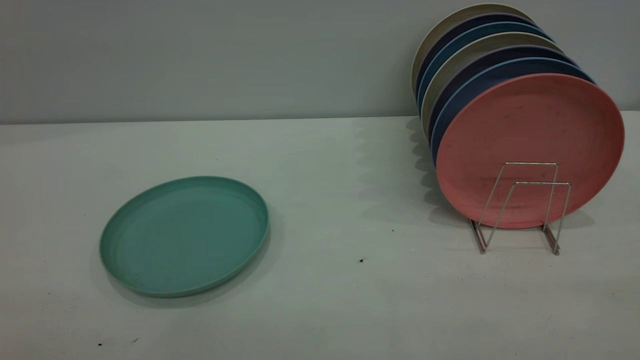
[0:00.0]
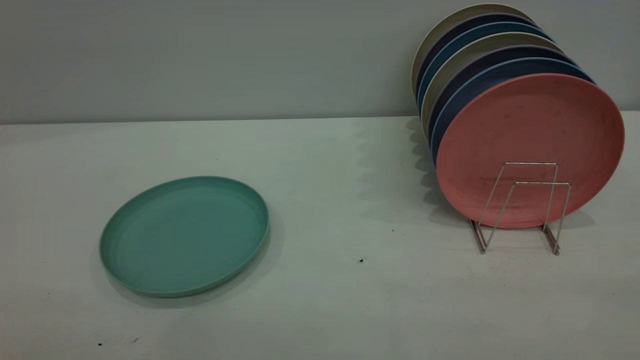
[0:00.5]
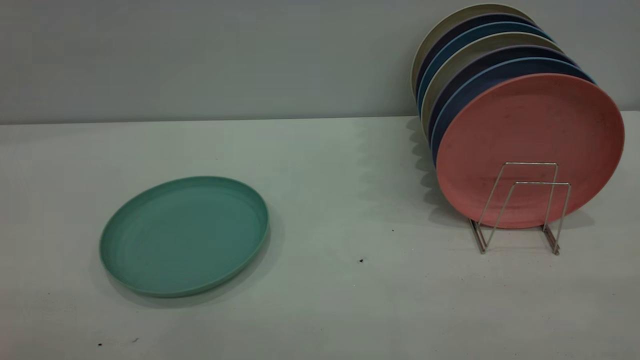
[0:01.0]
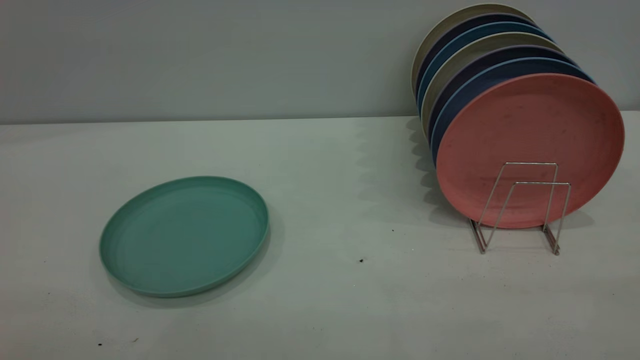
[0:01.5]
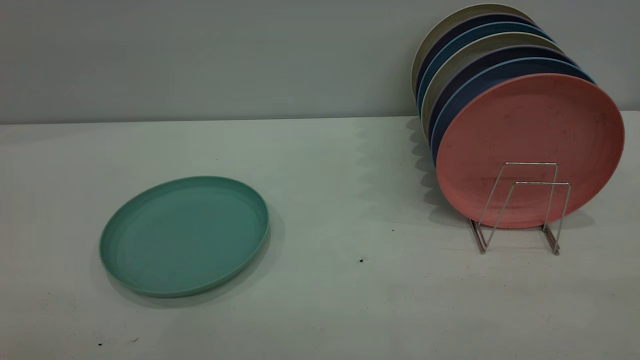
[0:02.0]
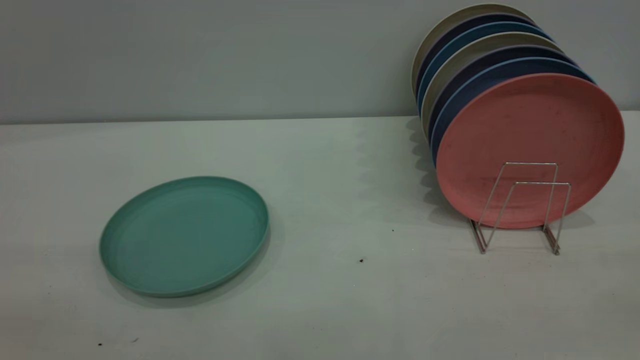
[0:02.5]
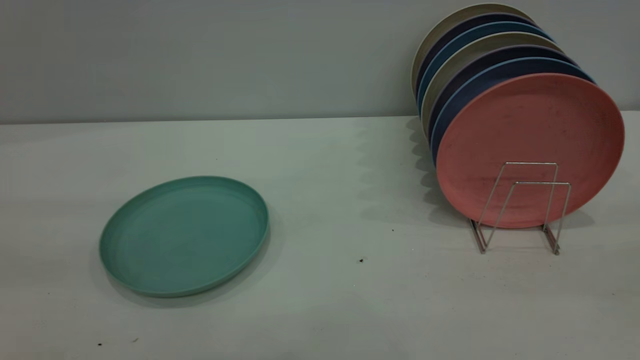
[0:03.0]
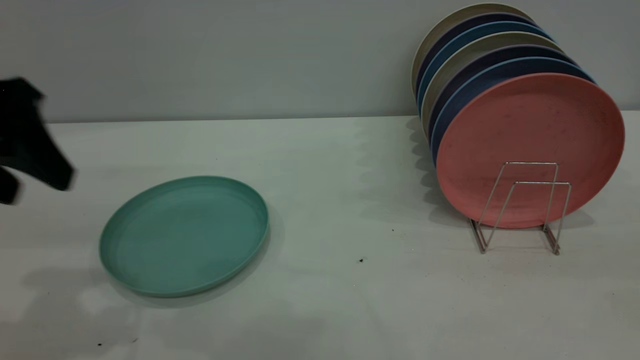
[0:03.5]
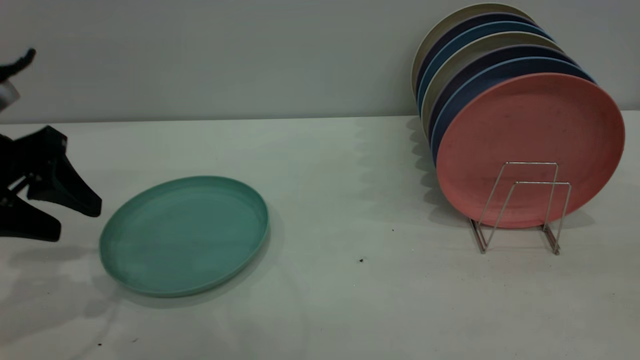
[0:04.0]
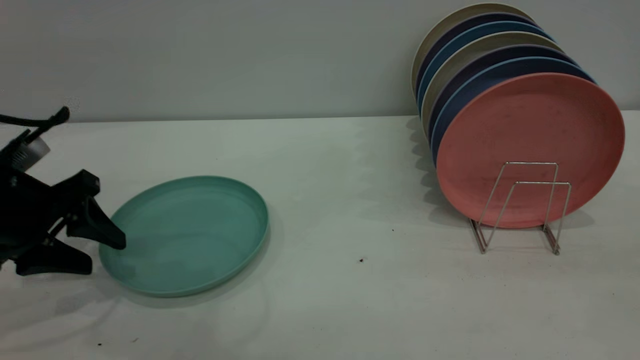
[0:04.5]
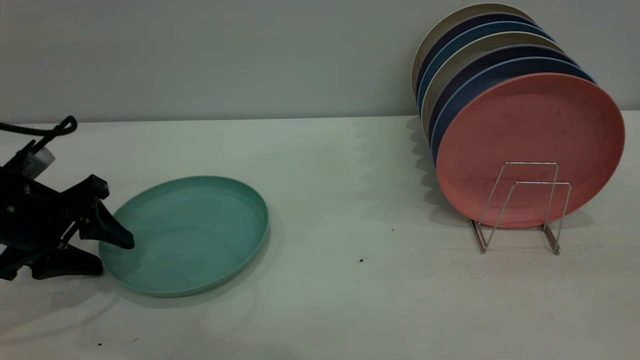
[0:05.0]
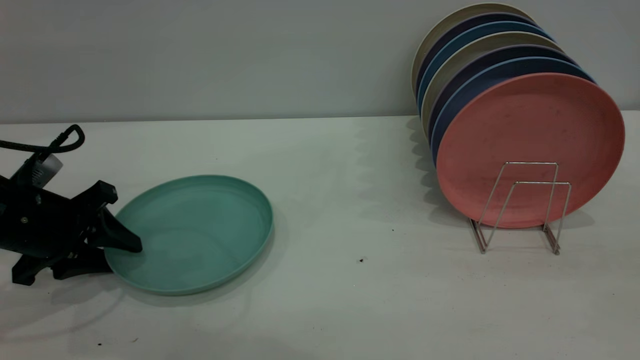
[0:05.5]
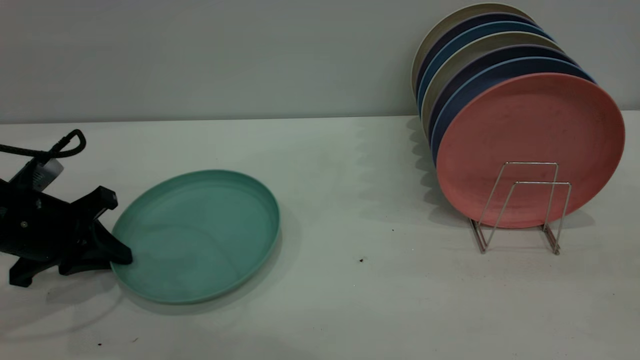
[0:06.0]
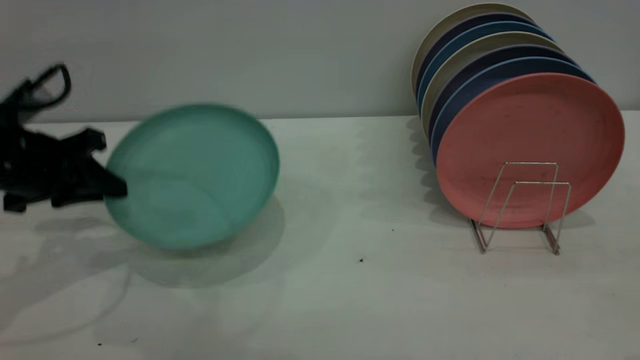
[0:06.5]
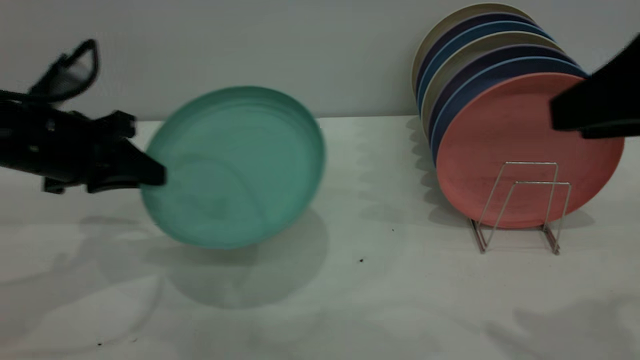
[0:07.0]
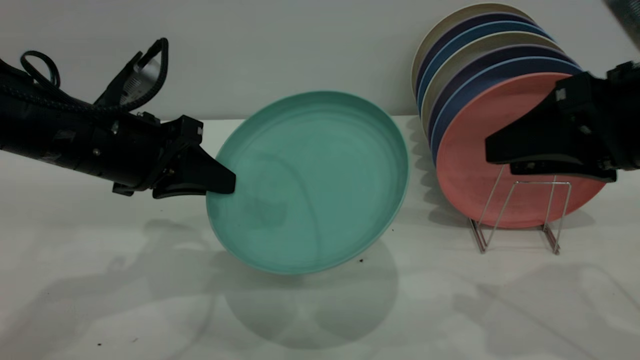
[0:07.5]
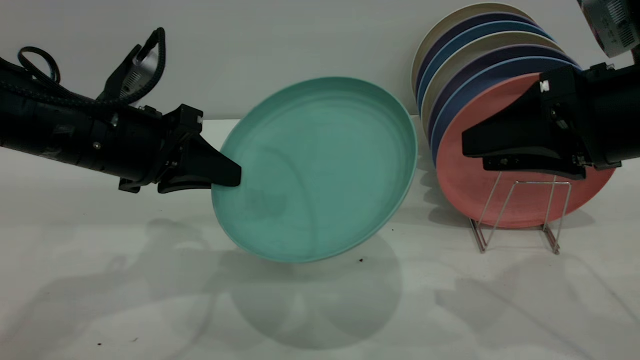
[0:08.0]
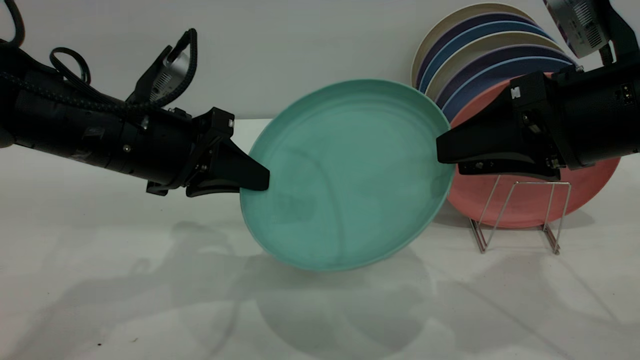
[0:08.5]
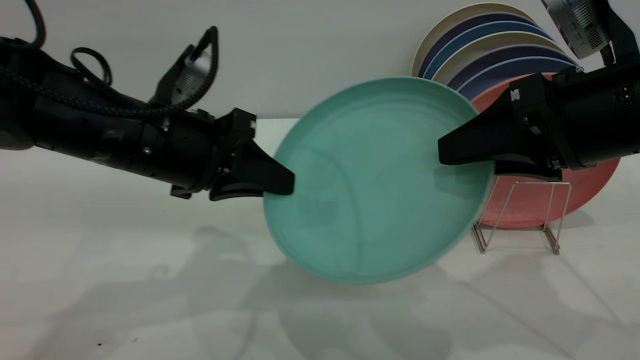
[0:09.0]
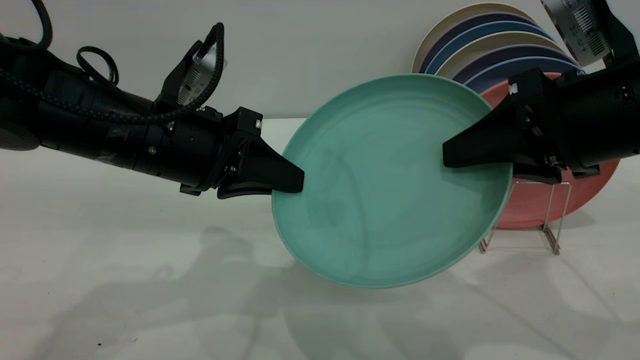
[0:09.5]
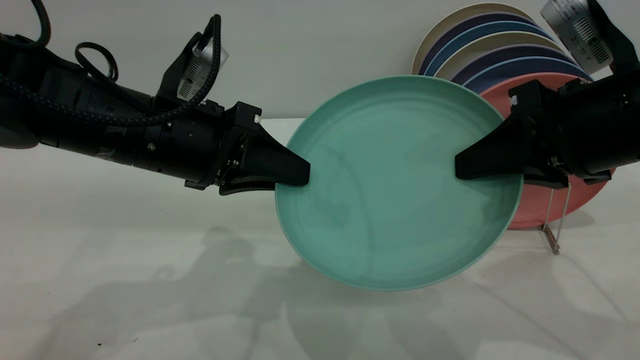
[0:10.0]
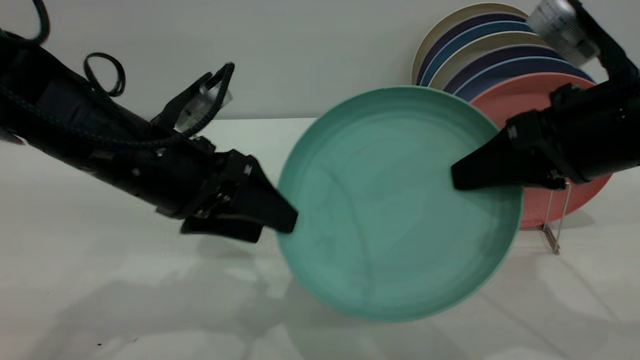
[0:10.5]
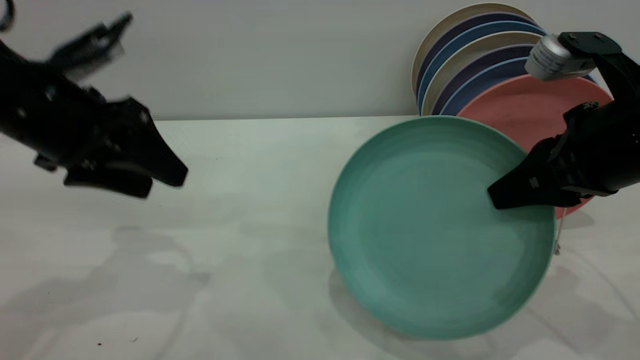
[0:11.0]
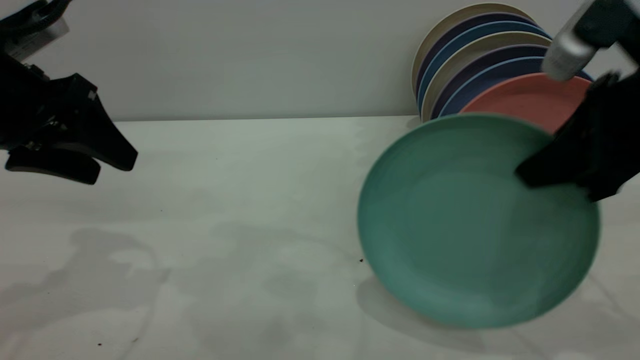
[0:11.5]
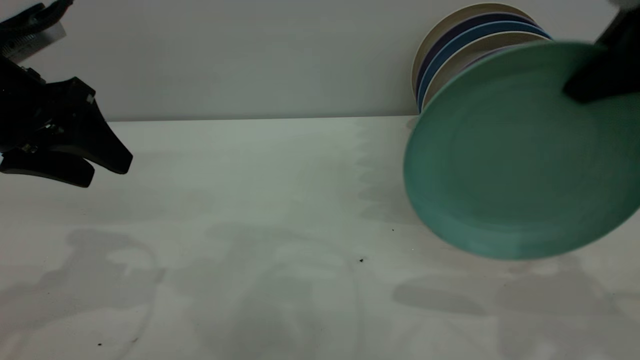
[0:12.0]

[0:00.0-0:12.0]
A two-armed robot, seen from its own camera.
Task of the whole recording: the left gripper grasp the green plate, the left gripper pass the green plate to the right gripper, and the right gripper place the green plate on the plate rack.
Step, 0:00.0 to 0:06.0: Pick up the plate with the left gripper.
Step, 0:06.5 to 0:10.5: Pass the plate from the left gripper to the right gripper.
0:00.0 to 0:02.0: Neither gripper changes place.
0:02.0 to 0:04.0: The left gripper is displaced forward and downward by about 35 cm.
0:04.0 to 0:06.0: The left gripper shifts some 10 cm downward, and closes.
0:06.0 to 0:08.0: The right gripper goes roughly 15 cm forward and downward, while the left gripper travels to the right and upward by approximately 15 cm.
0:08.0 to 0:10.0: The right gripper closes up. The left gripper heads to the right, covering approximately 5 cm, and opens its fingers.
0:10.0 to 0:12.0: The left gripper moves to the left and upward, approximately 15 cm, and opens; the right gripper shifts roughly 10 cm upward.

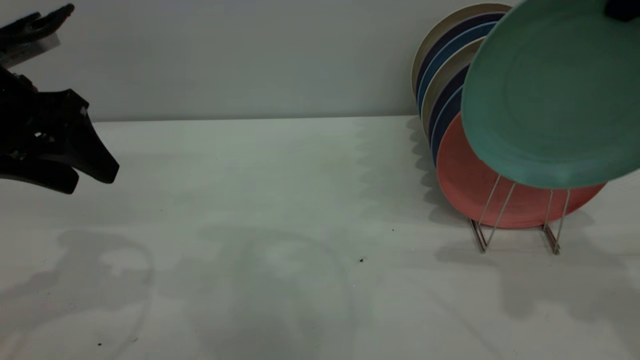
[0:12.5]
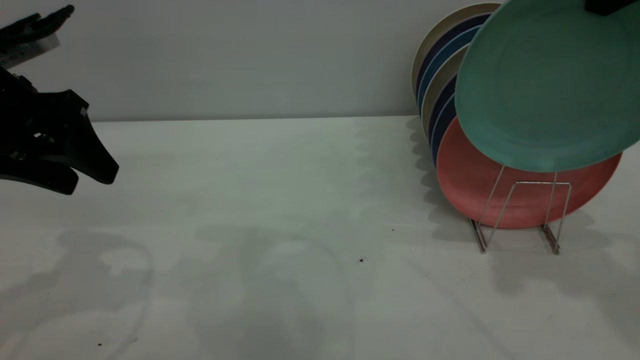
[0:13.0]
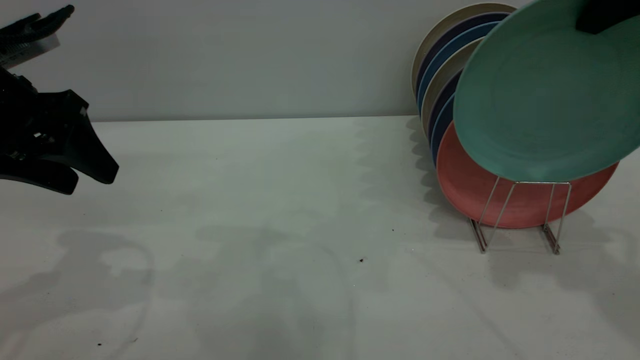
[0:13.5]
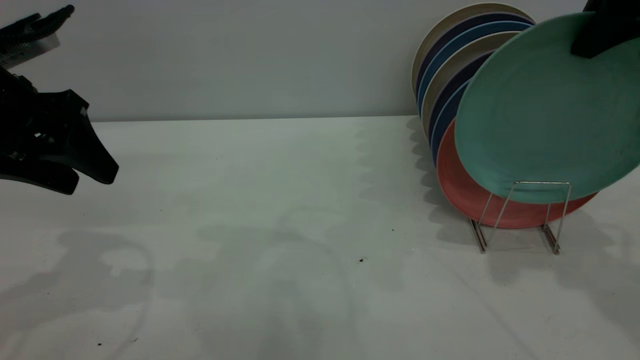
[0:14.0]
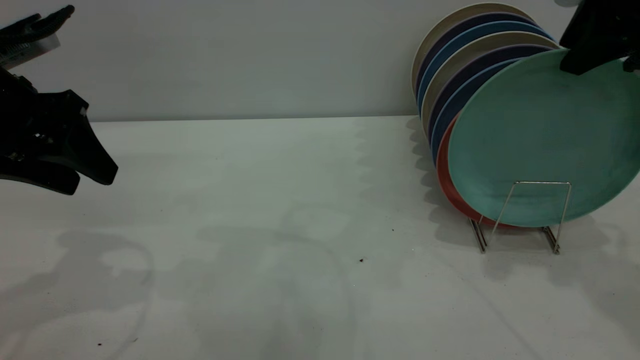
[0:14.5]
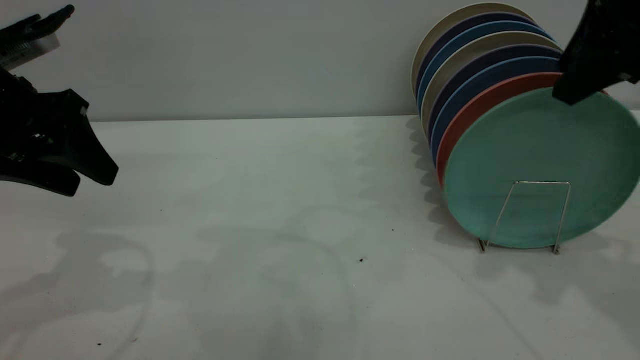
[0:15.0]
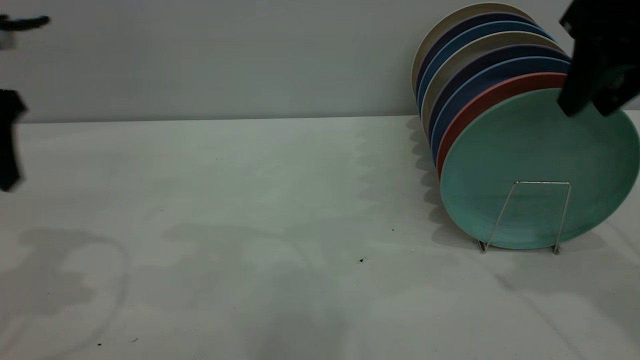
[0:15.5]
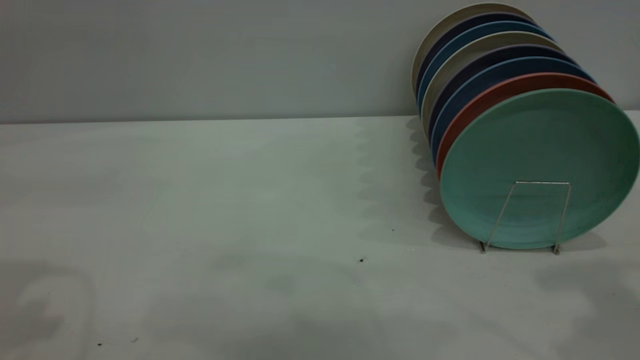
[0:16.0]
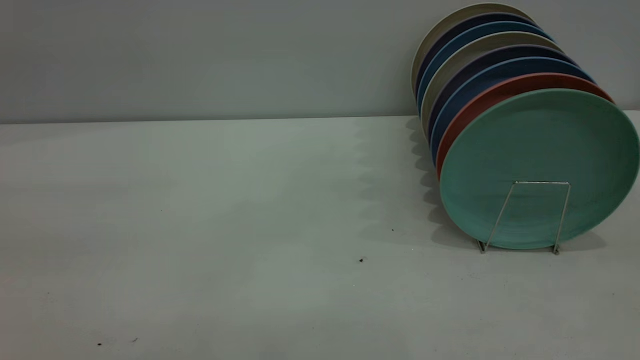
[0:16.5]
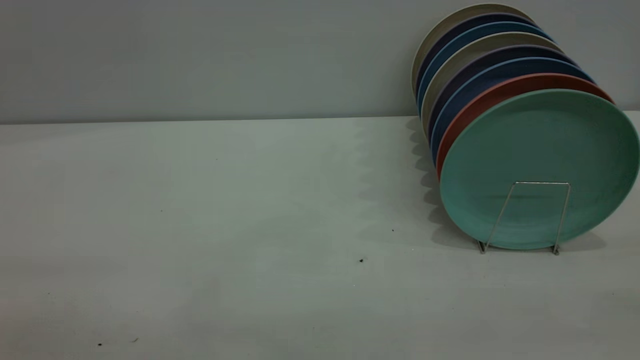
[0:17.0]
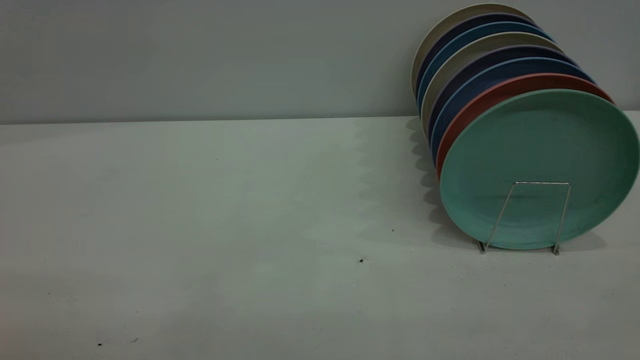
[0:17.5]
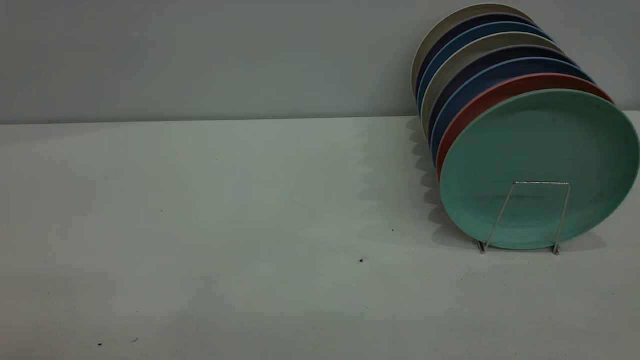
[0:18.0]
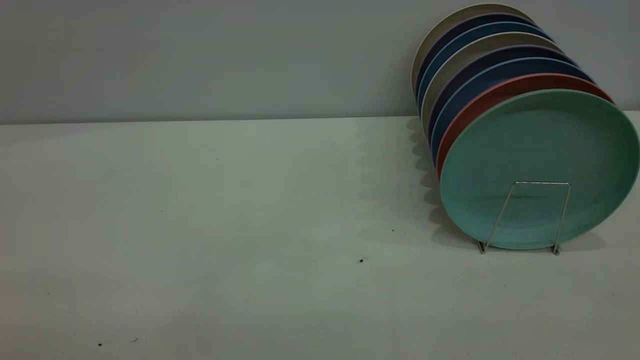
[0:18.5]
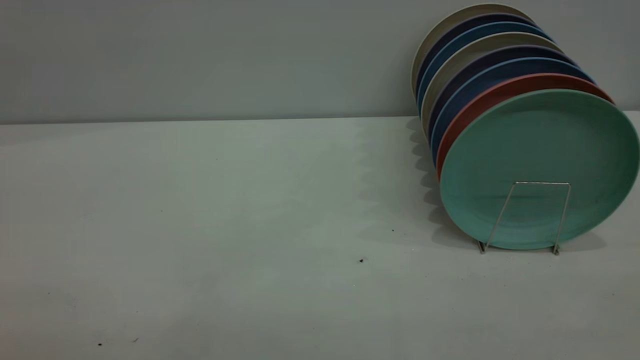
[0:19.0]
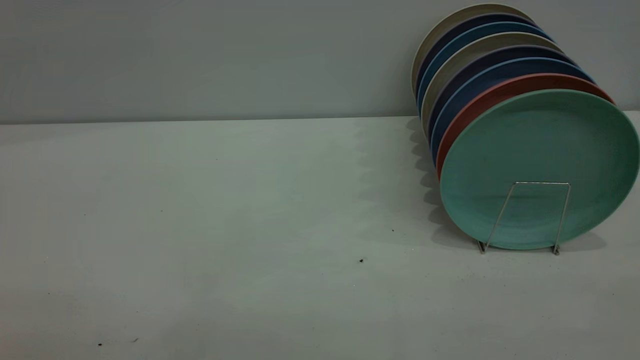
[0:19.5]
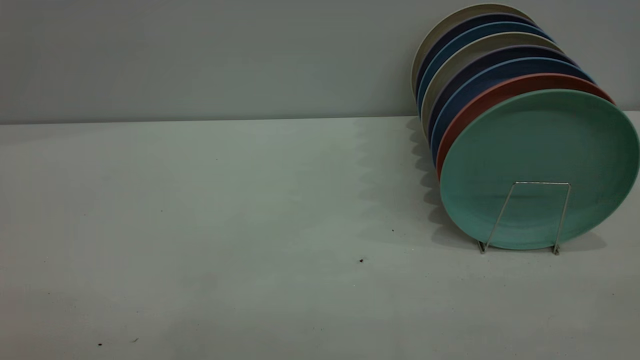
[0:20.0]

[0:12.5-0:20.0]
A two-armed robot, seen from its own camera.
Task of the whole recording: the left gripper grasp the green plate, the left gripper pass the green plate to the right gripper, and the right gripper place the green plate on the plate rack.
Step, 0:12.5 to 0:15.5: Place the plate on the shelf.
0:12.5 to 0:14.5: The right gripper moves downward, approximately 5 cm, and opens.
0:14.5 to 0:16.5: The right gripper goes approximately 25 cm backward. Meanwhile the left gripper is displaced backward and upward by roughly 25 cm.
